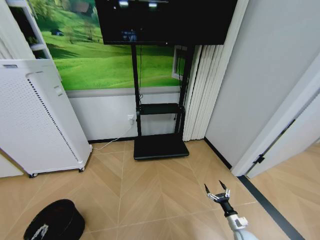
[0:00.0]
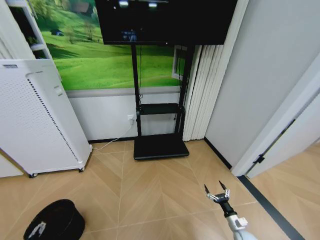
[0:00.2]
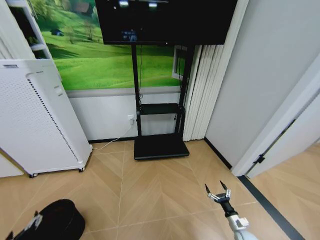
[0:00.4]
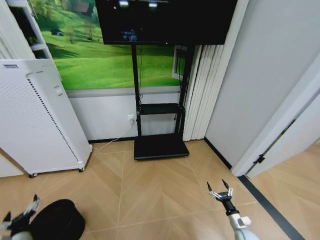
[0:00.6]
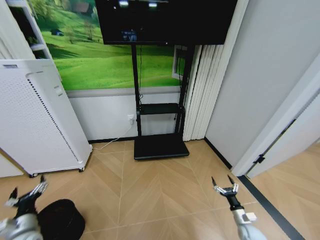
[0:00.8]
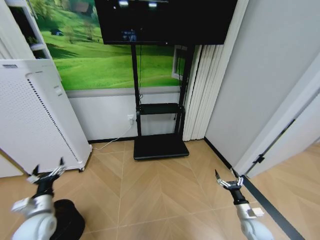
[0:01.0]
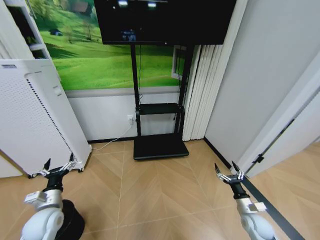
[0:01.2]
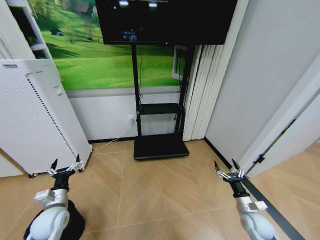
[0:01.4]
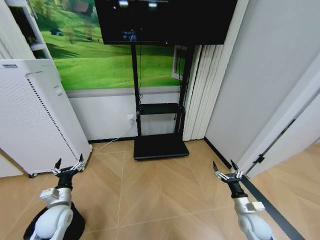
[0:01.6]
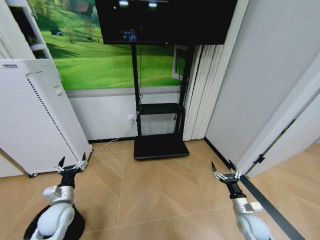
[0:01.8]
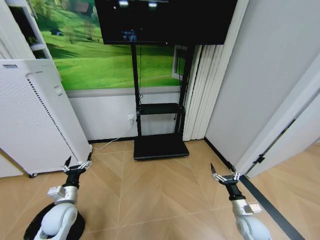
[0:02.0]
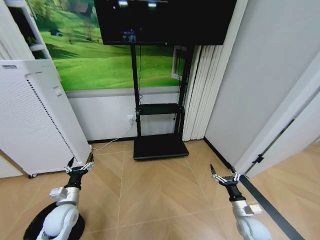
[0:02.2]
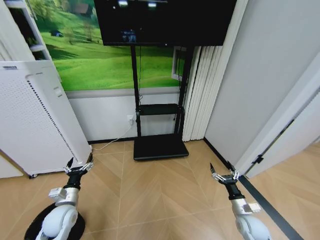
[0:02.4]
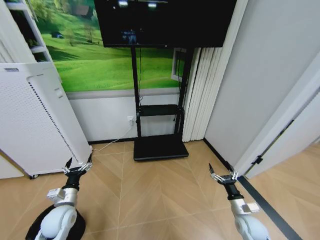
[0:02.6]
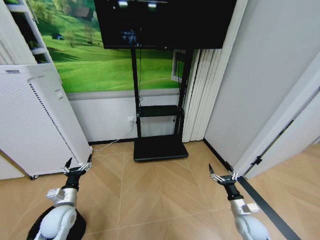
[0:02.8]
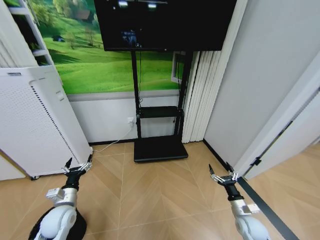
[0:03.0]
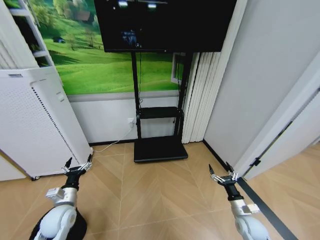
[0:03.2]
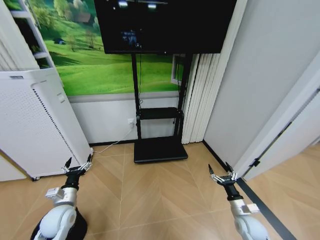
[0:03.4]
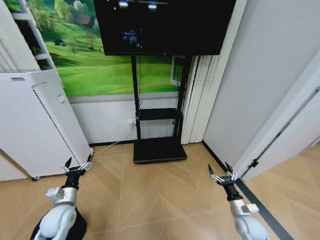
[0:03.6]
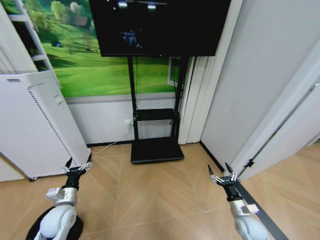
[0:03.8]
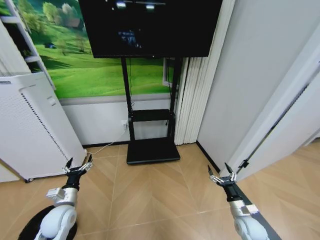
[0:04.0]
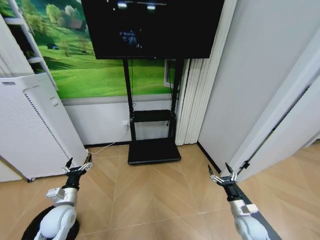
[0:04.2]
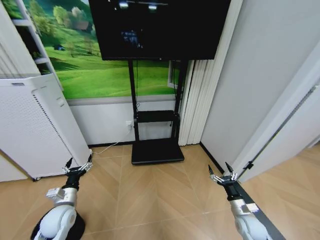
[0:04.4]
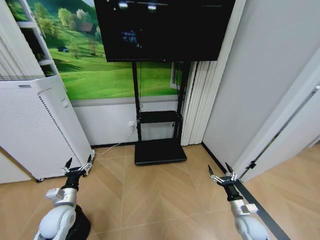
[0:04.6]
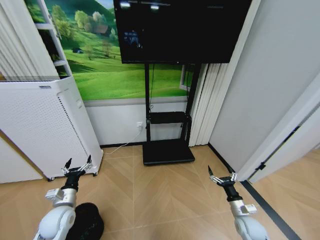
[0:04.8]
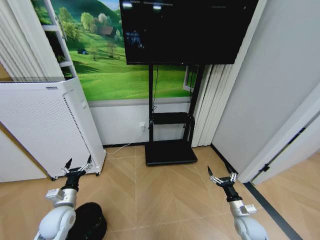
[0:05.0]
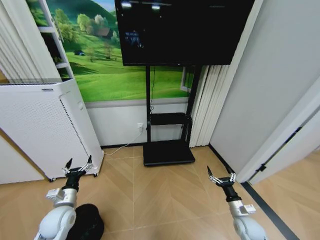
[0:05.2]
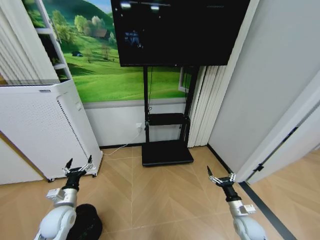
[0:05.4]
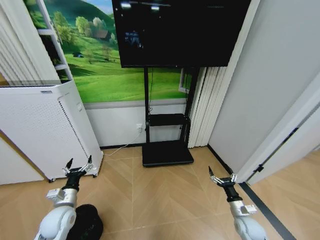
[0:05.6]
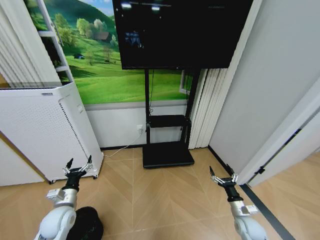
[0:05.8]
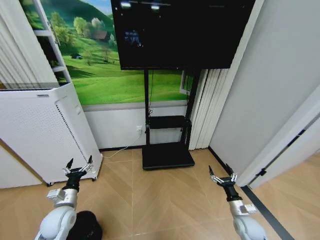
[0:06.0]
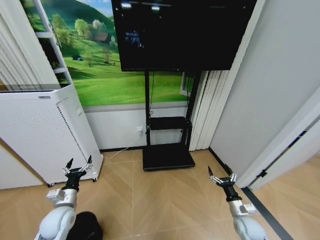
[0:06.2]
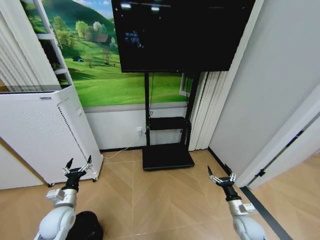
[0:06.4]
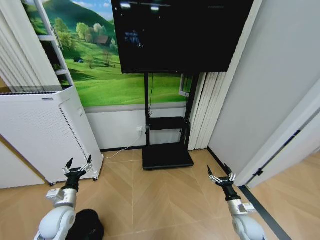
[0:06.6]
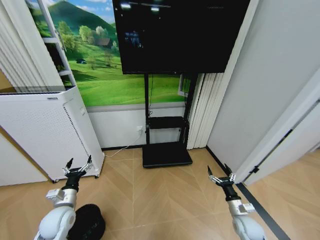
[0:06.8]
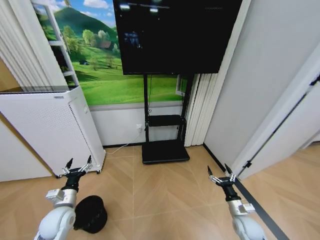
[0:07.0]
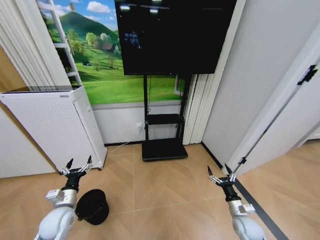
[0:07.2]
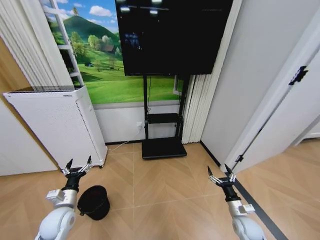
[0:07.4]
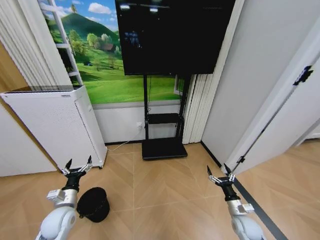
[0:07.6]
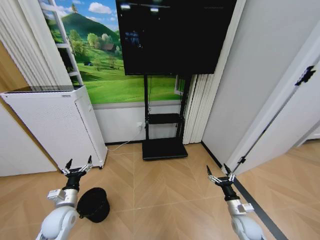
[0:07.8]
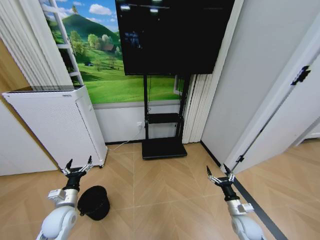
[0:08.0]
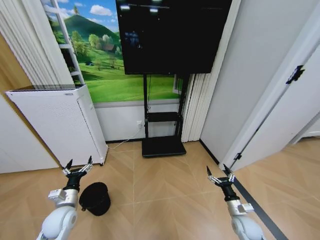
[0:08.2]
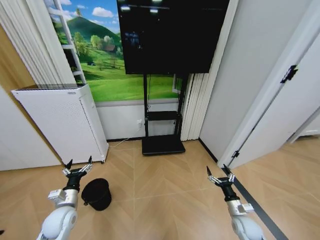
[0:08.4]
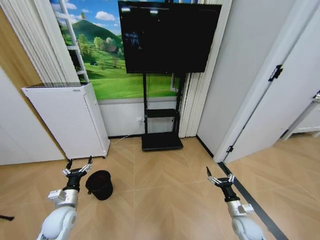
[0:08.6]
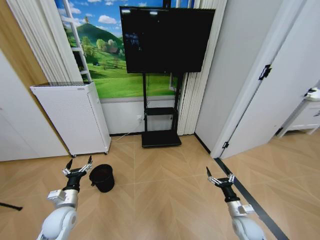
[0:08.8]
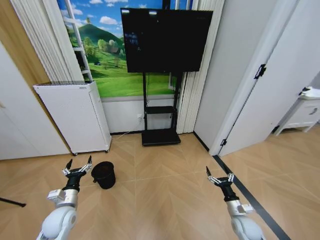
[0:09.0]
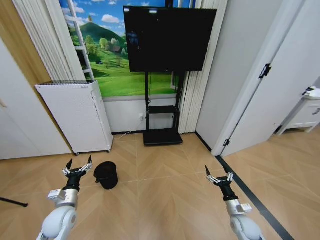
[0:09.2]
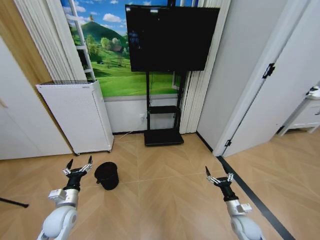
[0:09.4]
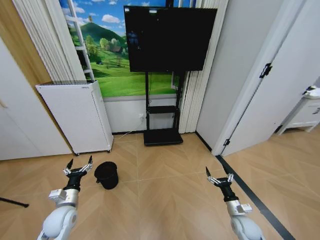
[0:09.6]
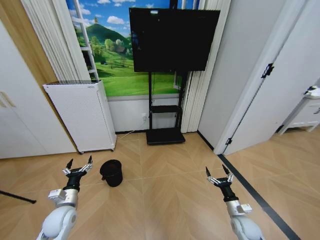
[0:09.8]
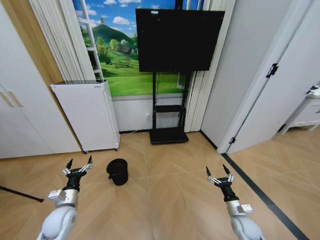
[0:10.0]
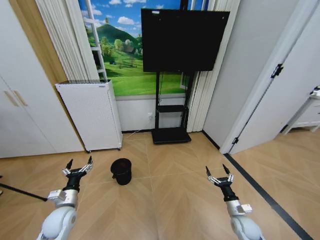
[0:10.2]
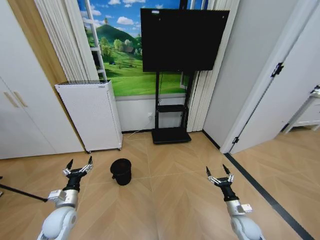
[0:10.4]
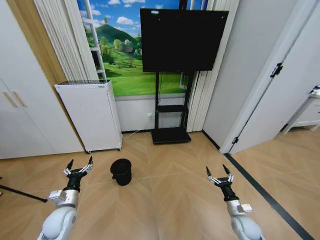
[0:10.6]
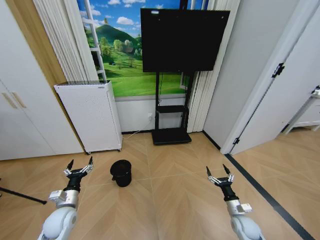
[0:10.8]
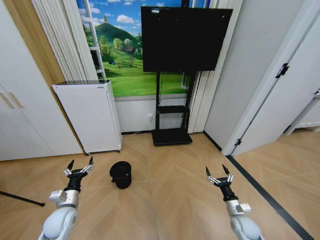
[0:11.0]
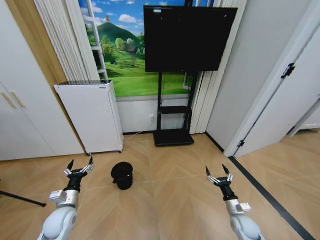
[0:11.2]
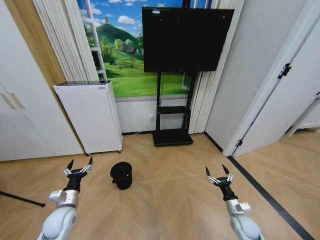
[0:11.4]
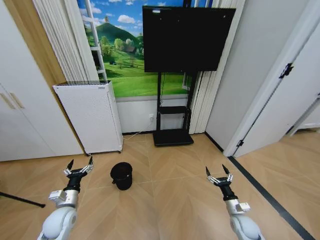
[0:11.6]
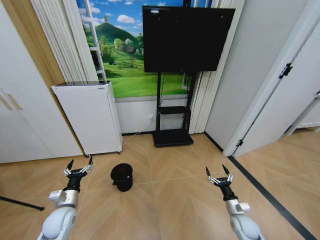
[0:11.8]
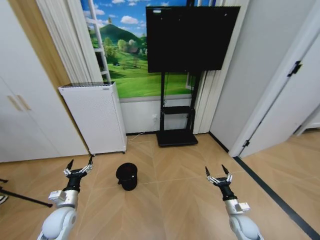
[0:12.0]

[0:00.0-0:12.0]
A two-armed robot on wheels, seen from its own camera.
Task of the whole recording: Pick up the trash bin and place the garbage on the floor into it.
0:00.0 to 0:01.6: The left gripper is displaced upward, forward and to the right by approximately 25 cm. The right gripper travels upward by roughly 15 cm.
0:01.6 to 0:03.0: The grippers stay close to where they were, moving slightly.
0:03.0 to 0:04.4: Both grippers stay about where they are.

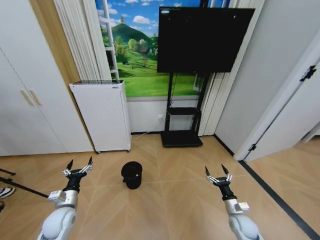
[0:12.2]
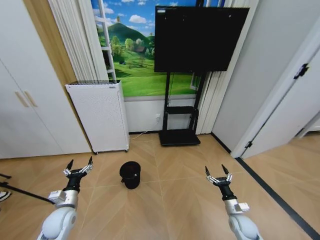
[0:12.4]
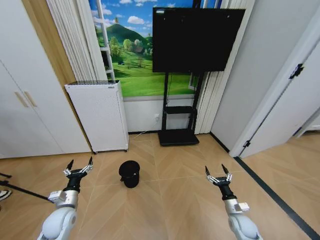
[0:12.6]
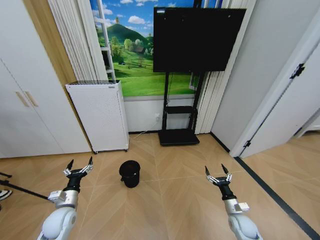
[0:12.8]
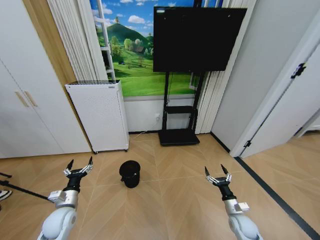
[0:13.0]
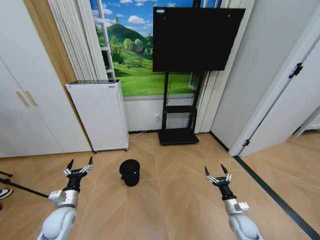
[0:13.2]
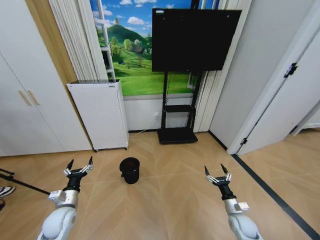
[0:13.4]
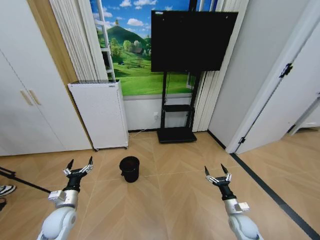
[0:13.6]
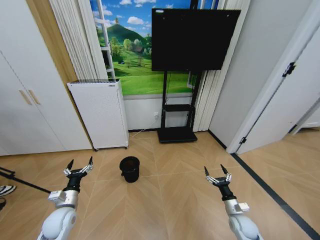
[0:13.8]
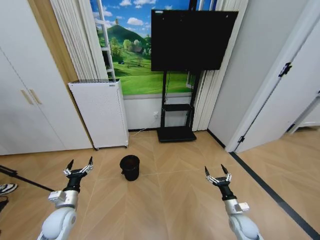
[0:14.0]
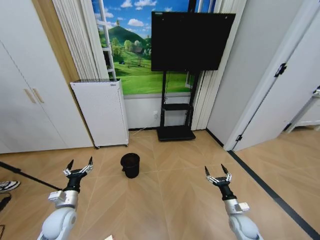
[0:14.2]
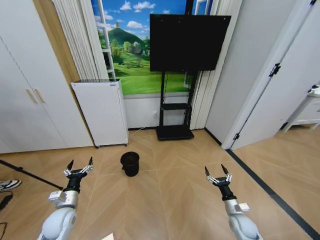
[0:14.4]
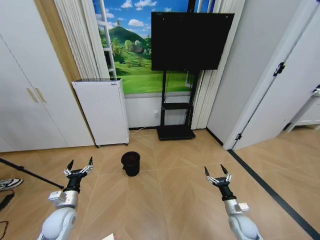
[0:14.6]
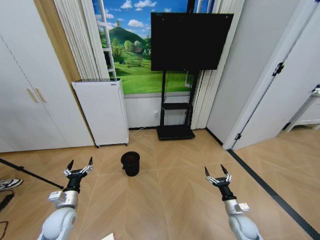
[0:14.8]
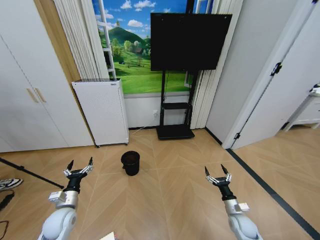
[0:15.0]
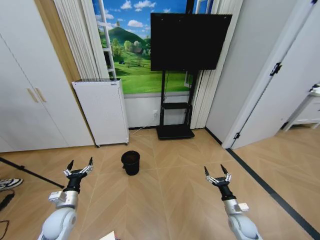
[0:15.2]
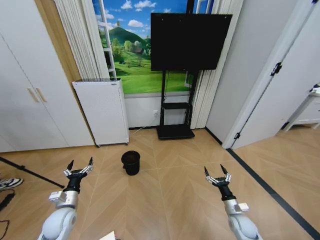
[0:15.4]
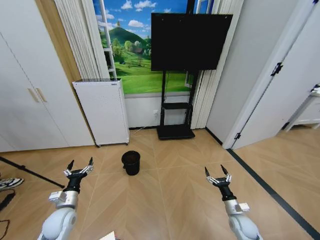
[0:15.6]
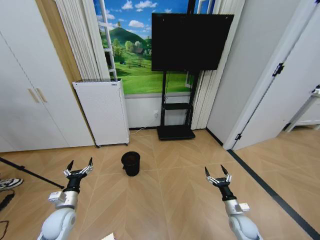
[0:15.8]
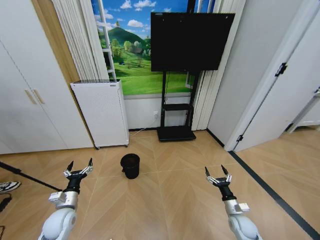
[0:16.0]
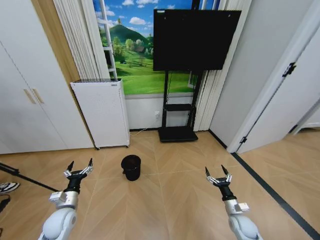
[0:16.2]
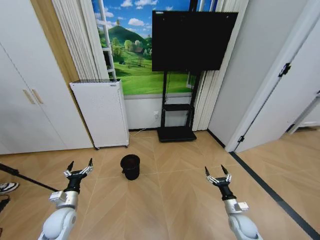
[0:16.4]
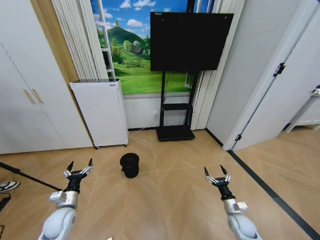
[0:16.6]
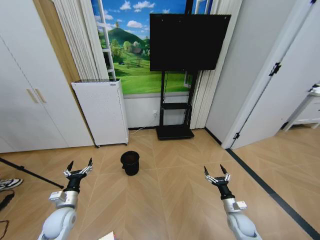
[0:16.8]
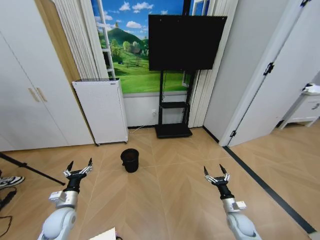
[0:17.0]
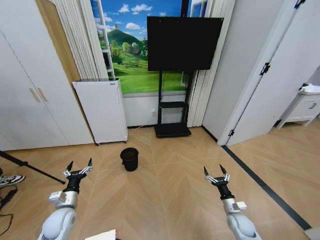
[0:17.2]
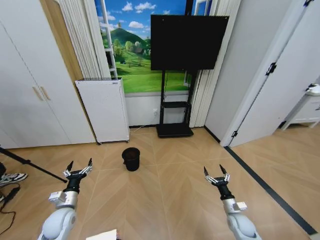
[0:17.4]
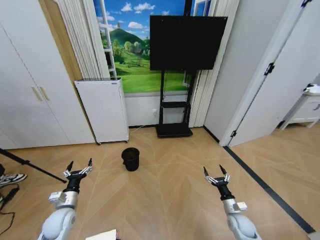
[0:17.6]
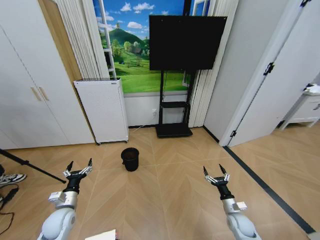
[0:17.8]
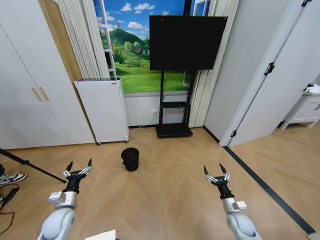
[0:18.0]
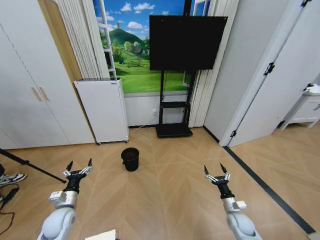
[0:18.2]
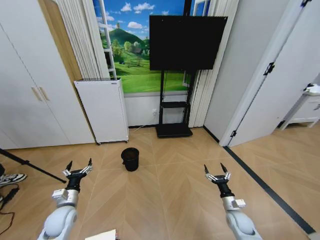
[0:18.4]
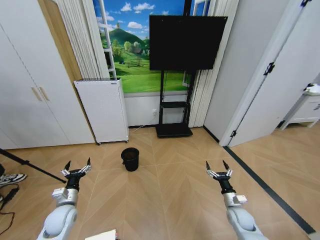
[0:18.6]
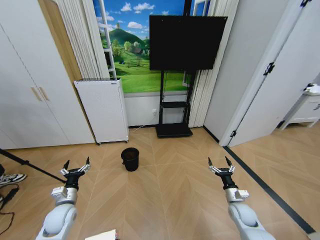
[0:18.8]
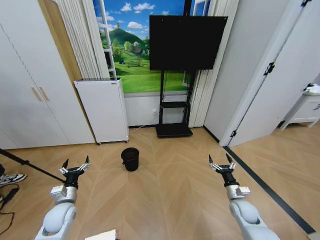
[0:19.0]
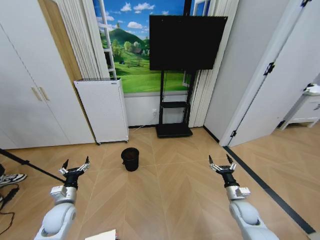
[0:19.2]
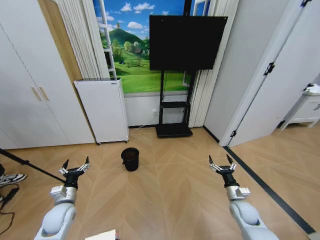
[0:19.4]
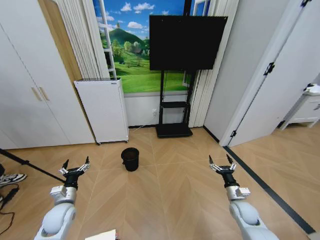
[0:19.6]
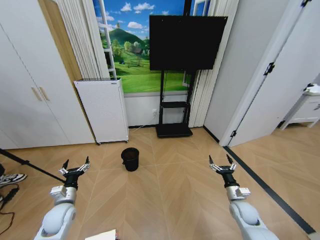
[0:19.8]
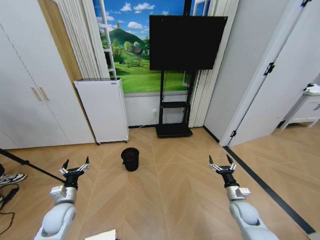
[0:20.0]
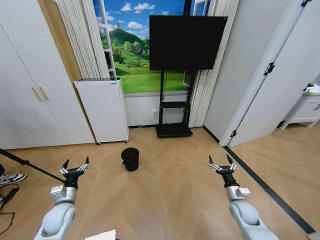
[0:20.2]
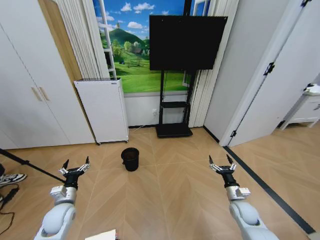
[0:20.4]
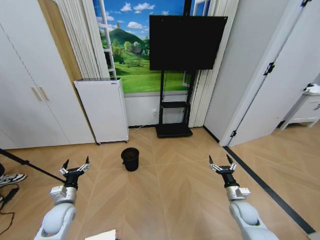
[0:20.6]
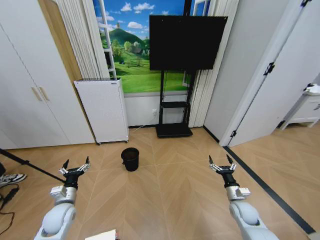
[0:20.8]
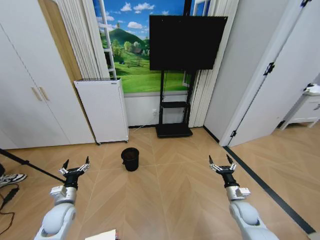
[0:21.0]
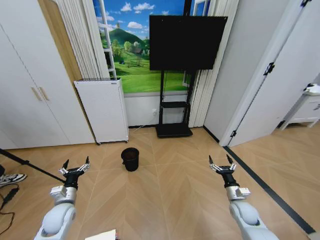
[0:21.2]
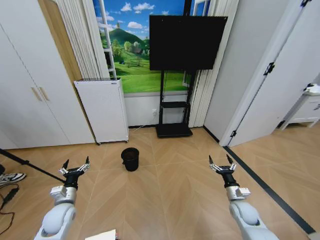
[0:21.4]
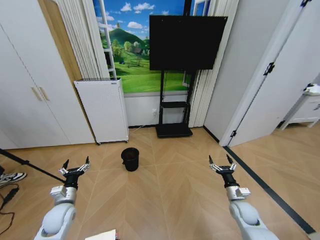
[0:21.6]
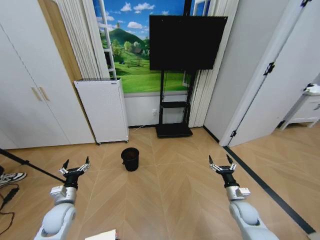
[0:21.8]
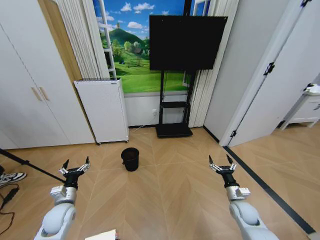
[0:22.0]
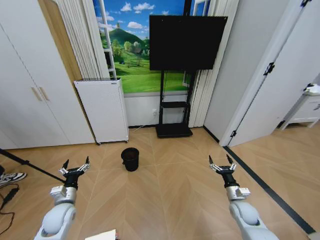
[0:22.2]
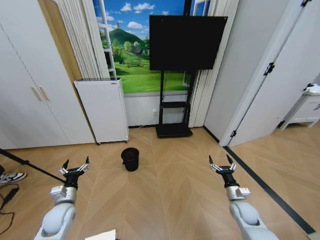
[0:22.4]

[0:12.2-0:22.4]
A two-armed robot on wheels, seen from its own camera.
Task of the whole recording: Pick up the trash bin and place the garbage on the floor into it.
0:12.2 to 0:15.2: The two grippers keep their place.
0:15.2 to 0:18.0: Both grippers stay put.
0:18.0 to 0:19.4: The right gripper travels upward by roughly 5 cm.
0:19.4 to 0:22.4: The two grippers keep their place.
